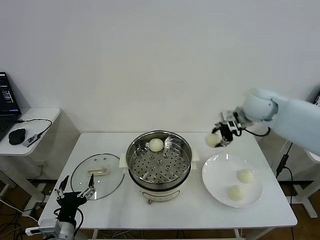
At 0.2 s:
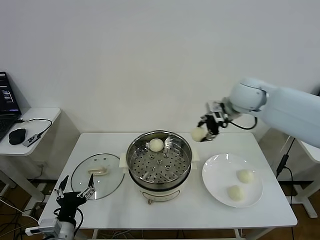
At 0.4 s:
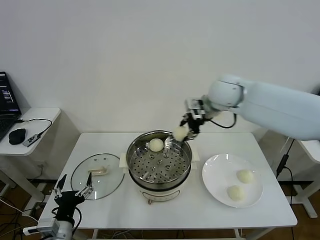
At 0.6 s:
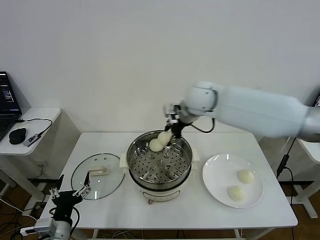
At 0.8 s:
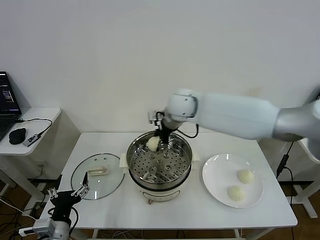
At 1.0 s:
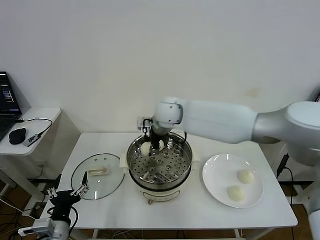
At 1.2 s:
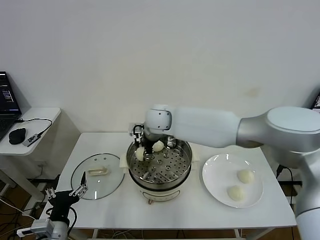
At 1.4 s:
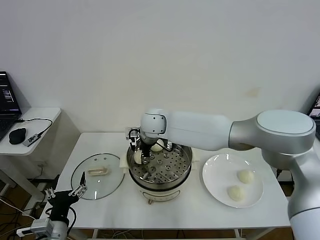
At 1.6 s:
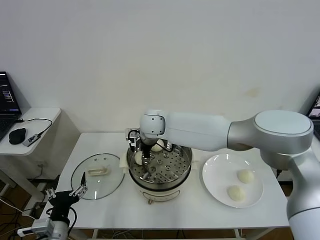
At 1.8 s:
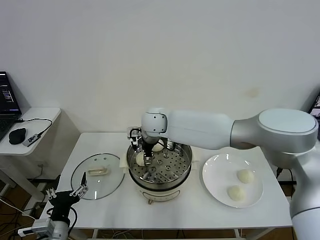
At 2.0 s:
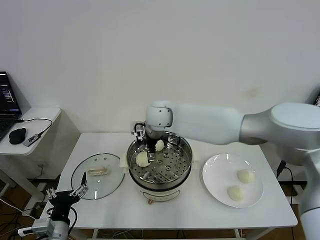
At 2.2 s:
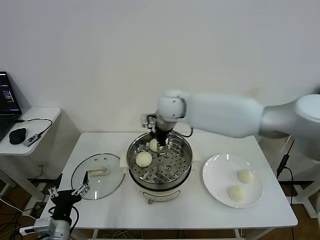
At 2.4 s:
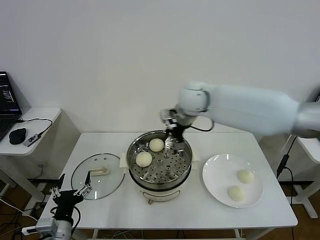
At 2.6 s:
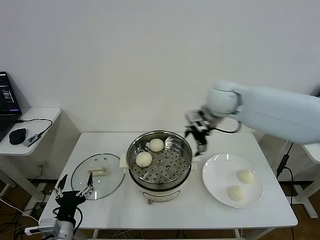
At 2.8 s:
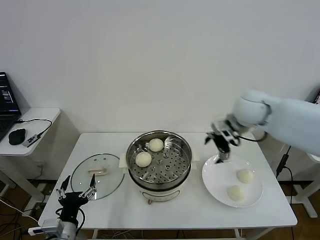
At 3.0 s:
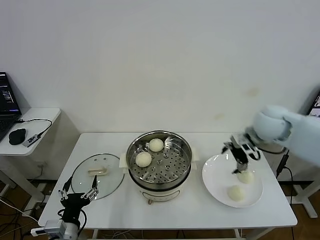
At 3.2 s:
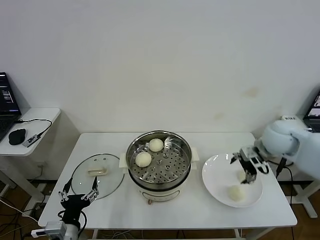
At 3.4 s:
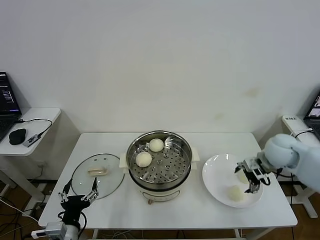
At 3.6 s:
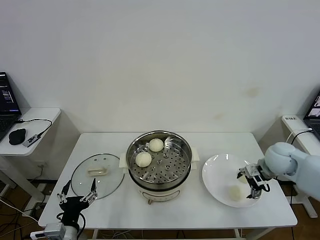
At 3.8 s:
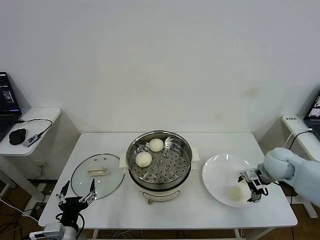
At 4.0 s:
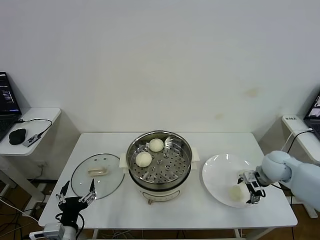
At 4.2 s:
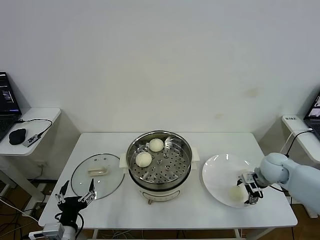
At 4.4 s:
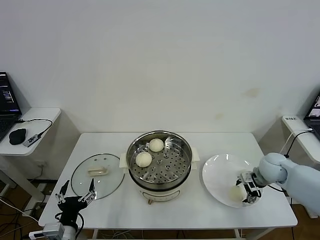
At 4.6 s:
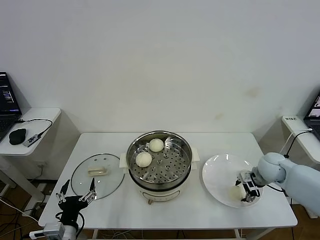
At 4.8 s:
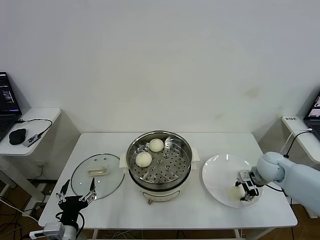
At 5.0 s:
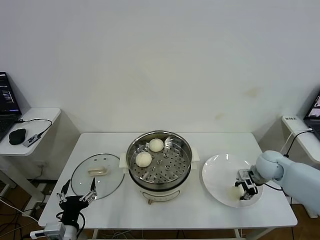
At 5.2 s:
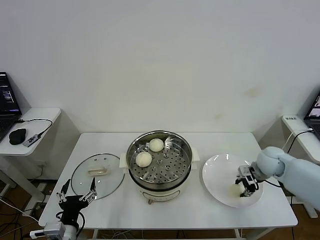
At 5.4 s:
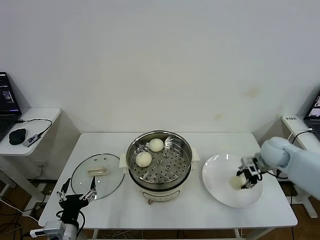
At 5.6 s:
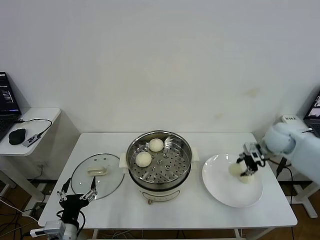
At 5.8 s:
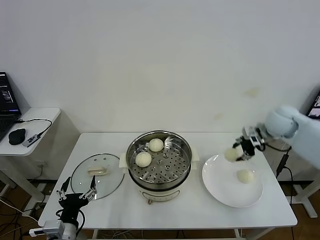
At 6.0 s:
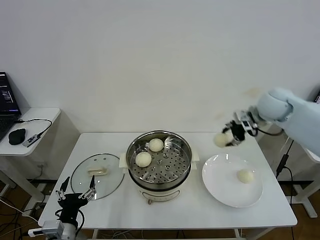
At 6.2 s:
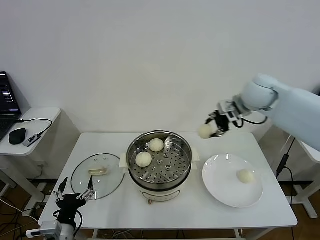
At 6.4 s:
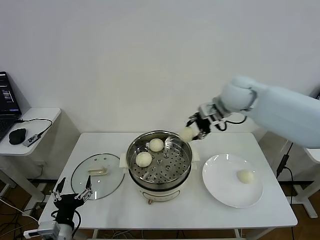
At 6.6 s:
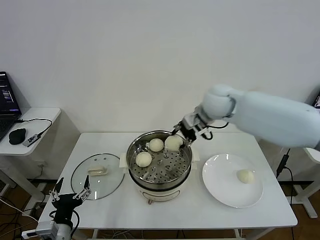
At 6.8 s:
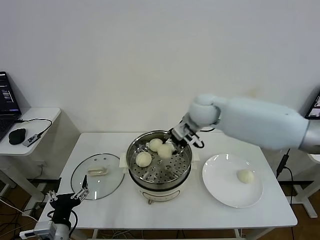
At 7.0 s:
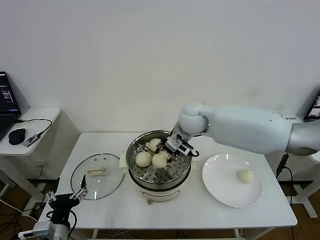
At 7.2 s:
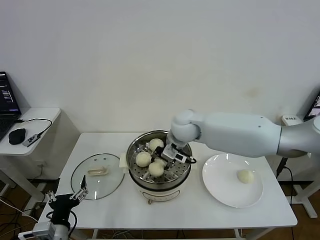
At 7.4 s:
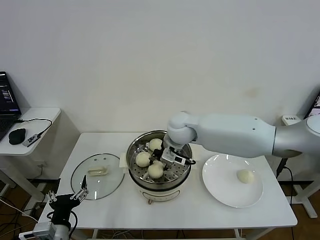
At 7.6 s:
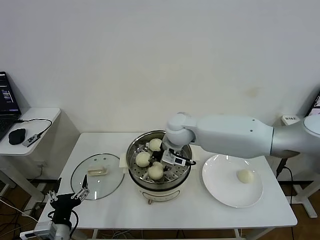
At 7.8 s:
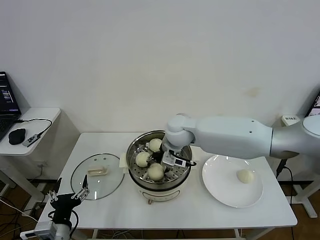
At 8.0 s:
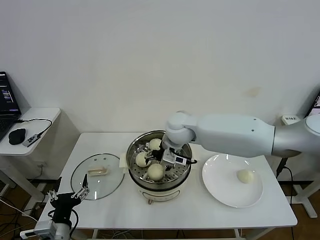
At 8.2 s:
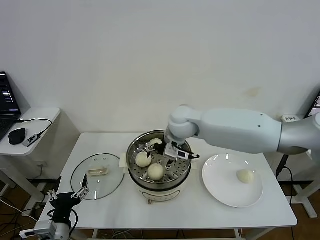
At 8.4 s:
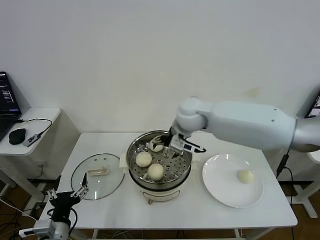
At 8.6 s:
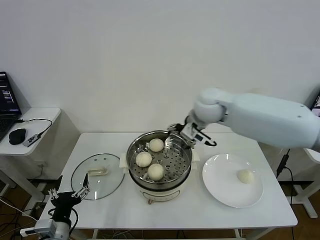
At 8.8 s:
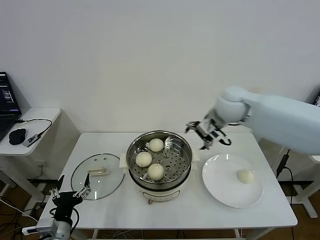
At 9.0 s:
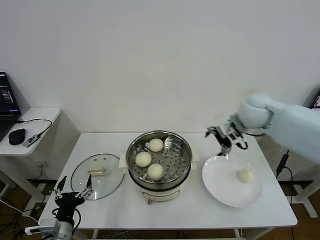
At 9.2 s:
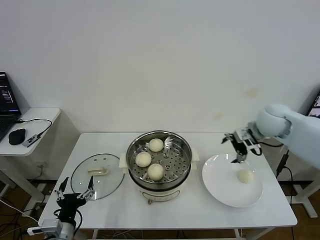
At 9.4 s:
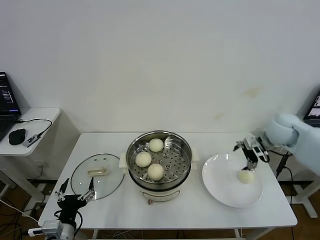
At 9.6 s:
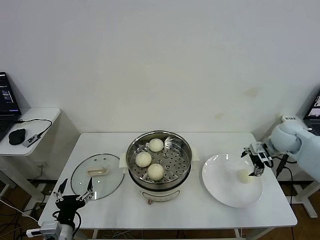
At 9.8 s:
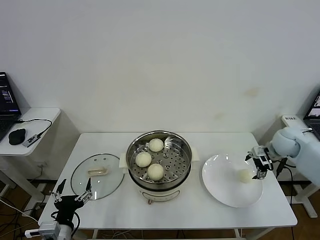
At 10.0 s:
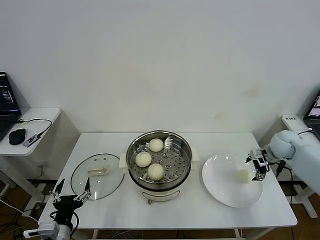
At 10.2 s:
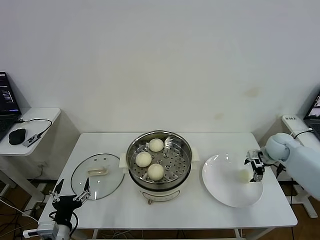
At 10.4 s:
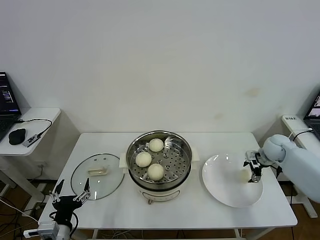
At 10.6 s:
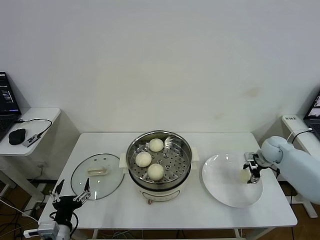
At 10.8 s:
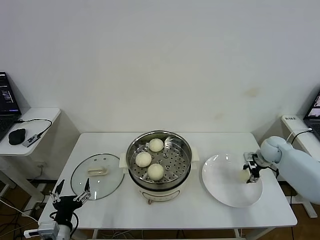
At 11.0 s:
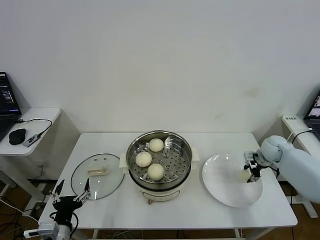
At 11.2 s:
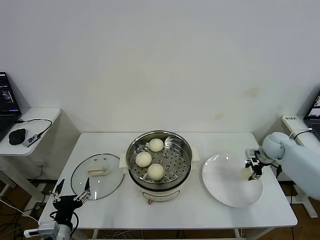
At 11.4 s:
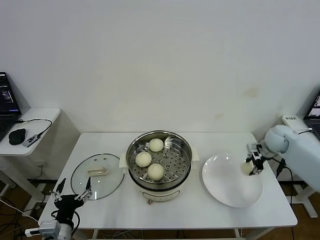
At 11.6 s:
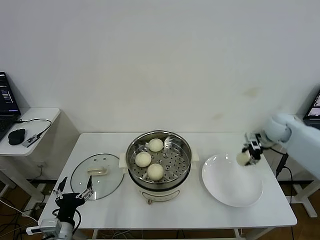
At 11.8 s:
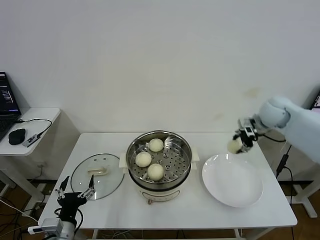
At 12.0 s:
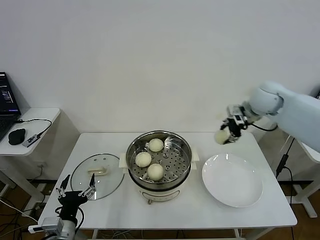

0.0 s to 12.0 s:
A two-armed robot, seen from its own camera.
Task of the whole recording: take steamed baozi put them in steamer then cover it.
Step, 0.0 to 1.8 s: Place the baozi on the steamer with right gripper.
Step, 2.0 to 5.2 s: Grasp the baozi in the plate with right gripper.
Step, 5.4 to 7.8 s: Place the baozi on the steamer with right gripper.
Step, 8.2 to 10.8 s: Grasp the baozi in the plate with right gripper.
0.0 to 1.6 s: The right gripper moves to the left, about 30 cm.
1.6 to 3.0 s: The right gripper goes some 35 cm to the right, and opens.
3.0 to 4.4 s: The right gripper is displaced downward by roughly 15 cm.
4.4 to 6.0 s: The right gripper is displaced upward and forward by some 25 cm, and closes.
6.0 to 7.6 s: The right gripper goes some 25 cm to the left.
7.6 to 9.0 s: The right gripper heads to the right, covering some 25 cm, and opens.
9.0 to 10.4 s: The right gripper shifts about 25 cm downward and to the right.
10.4 to 12.0 s: The right gripper is displaced upward and to the left by roughly 25 cm, and closes its fingers.

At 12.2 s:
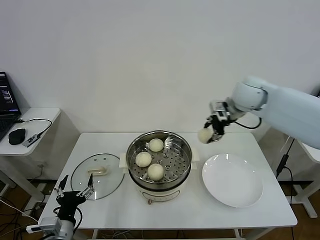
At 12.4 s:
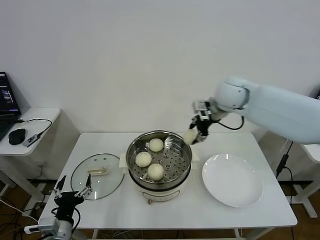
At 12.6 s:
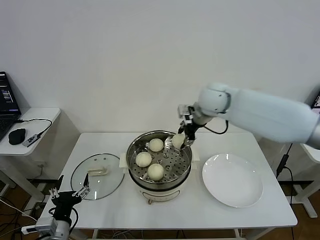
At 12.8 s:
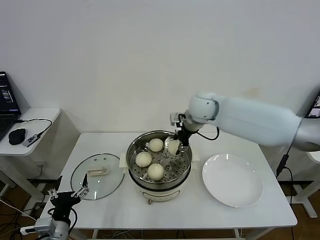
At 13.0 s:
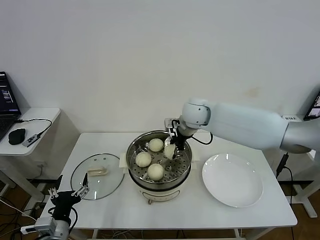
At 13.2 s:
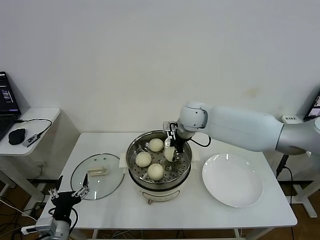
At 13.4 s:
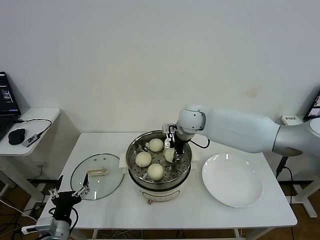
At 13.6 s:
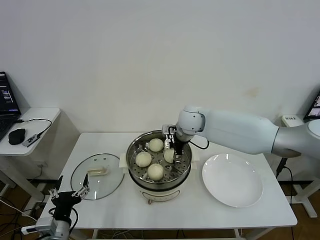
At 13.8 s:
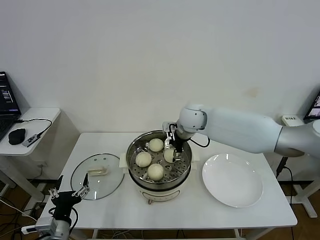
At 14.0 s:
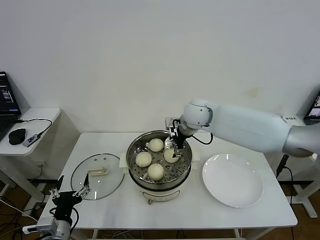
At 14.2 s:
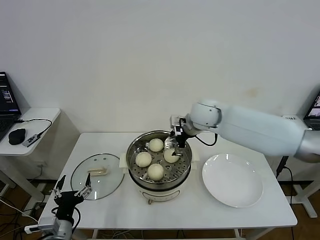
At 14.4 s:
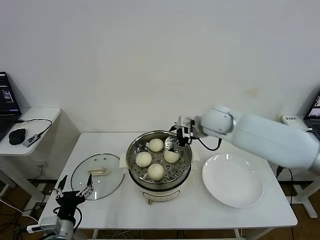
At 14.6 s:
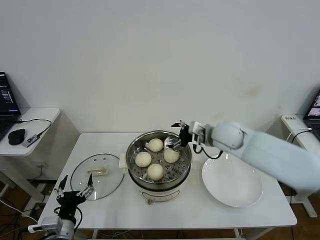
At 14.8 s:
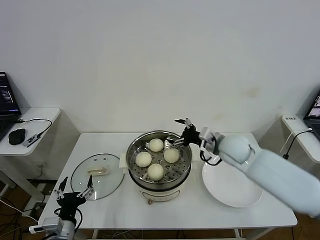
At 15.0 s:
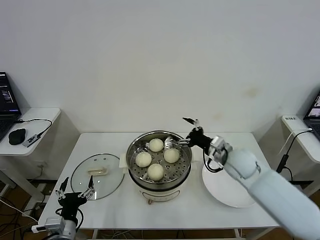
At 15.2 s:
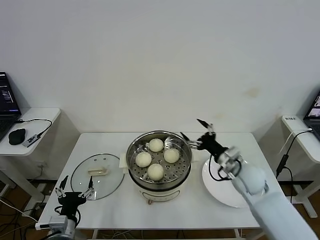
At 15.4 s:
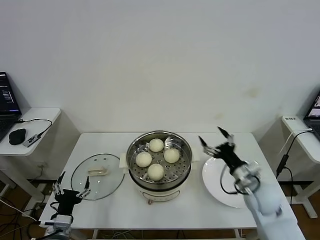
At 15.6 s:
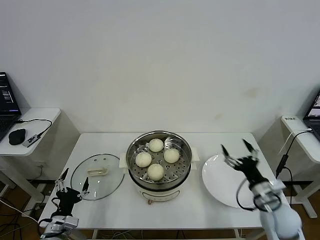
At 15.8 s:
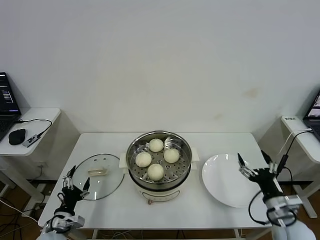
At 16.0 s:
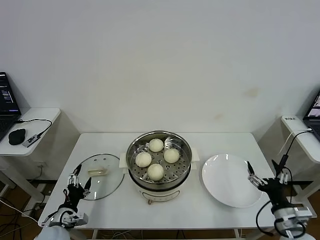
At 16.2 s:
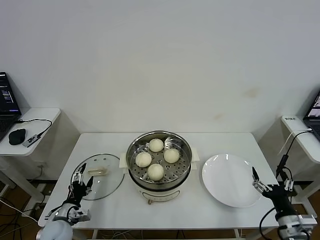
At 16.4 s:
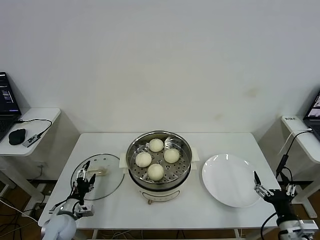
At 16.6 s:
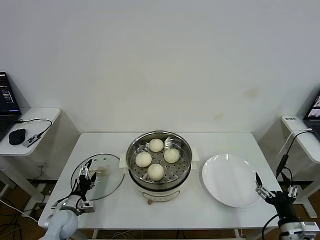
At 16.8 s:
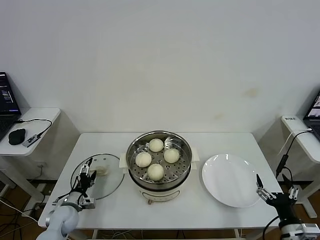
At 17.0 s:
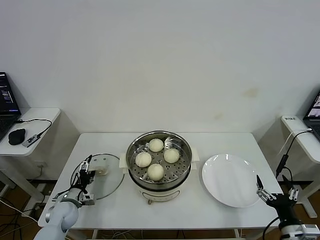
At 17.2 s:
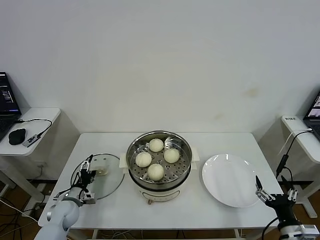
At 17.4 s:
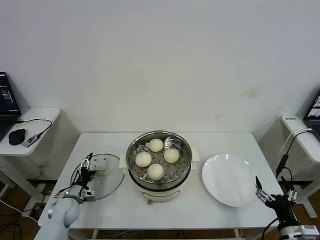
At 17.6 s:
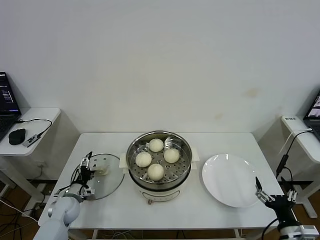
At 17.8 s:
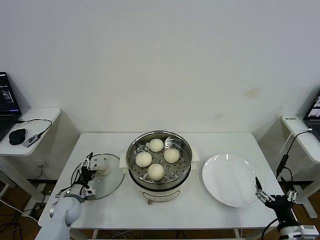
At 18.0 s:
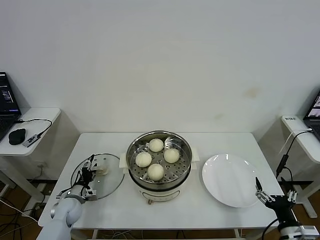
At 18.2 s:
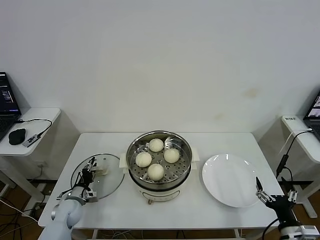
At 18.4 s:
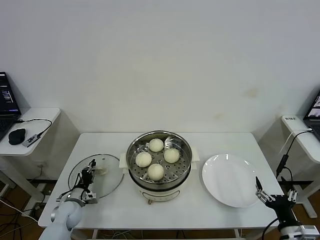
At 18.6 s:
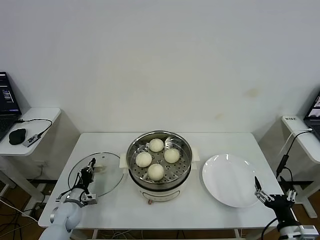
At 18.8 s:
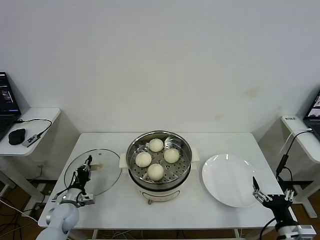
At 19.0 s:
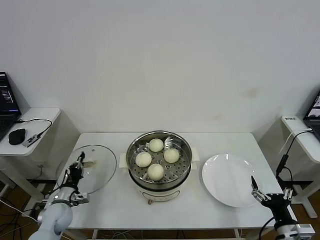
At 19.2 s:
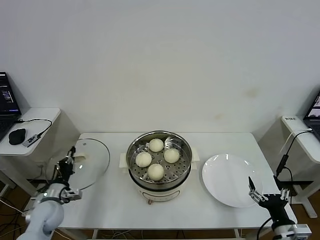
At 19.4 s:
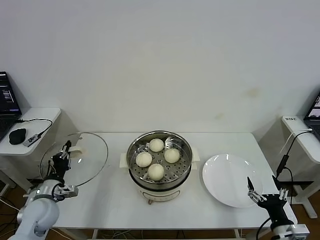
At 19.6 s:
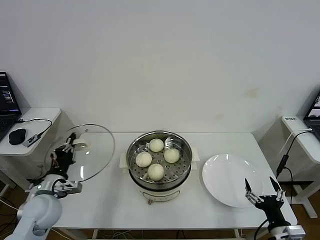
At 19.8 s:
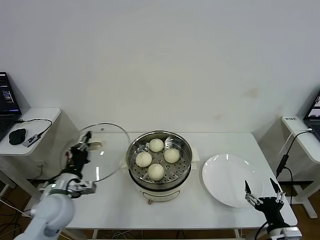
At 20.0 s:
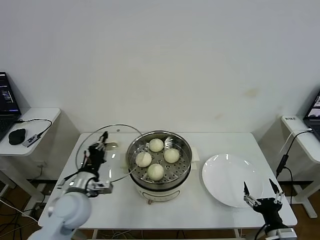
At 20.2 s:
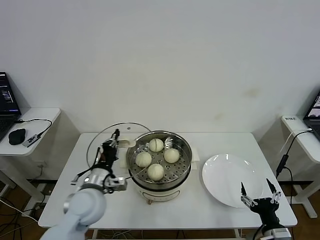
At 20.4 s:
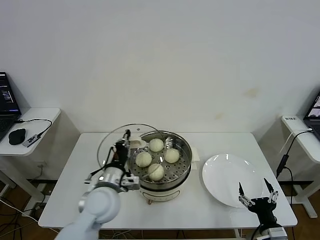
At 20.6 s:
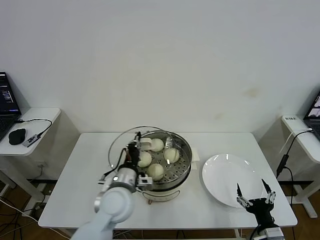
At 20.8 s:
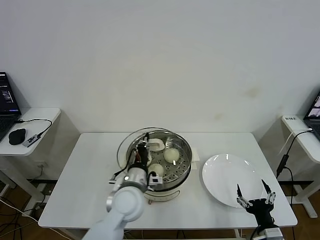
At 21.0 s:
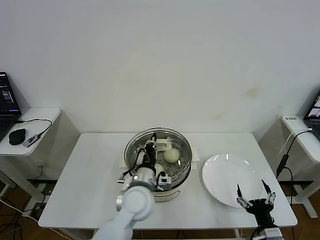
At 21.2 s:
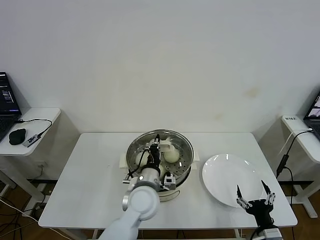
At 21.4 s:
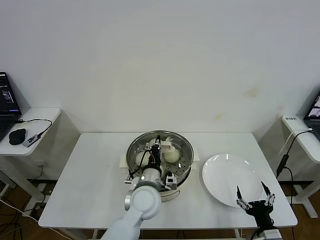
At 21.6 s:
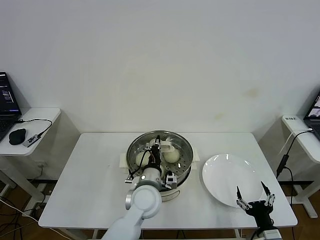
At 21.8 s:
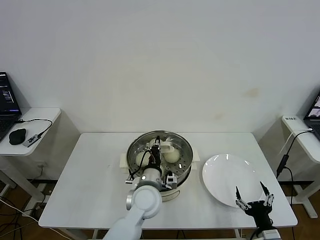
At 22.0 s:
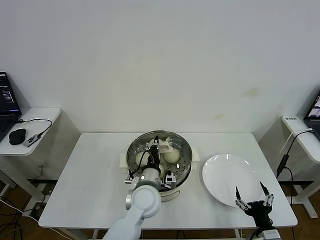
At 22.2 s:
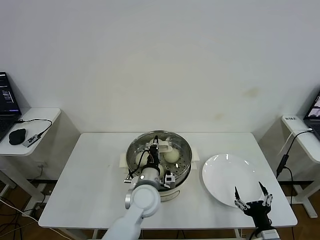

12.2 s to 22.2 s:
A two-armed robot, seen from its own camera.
Task of the whole recording: take steamed baozi put them in steamer then cover it.
Step, 12.2 to 13.8 s: Place the baozi on the steamer with right gripper.
Step, 14.0 to 18.6 s: Grasp the pot lid with left gripper.
12.2 to 13.6 s: The right gripper moves to the left and downward, roughly 20 cm, and opens its fingers.
13.6 to 15.0 s: The right gripper travels to the right, backward and downward by approximately 20 cm, and opens up.
15.0 to 16.4 s: The left gripper shifts about 15 cm forward, downward and to the left. The right gripper travels backward and to the right by about 30 cm.
16.4 to 18.0 s: The left gripper goes approximately 10 cm forward.
18.0 to 19.4 s: The left gripper is displaced upward and backward by some 15 cm, and closes its fingers.
19.4 to 20.8 s: The left gripper heads to the right, covering roughly 30 cm.
20.8 to 22.2 s: The left gripper is displaced to the right by approximately 5 cm.
